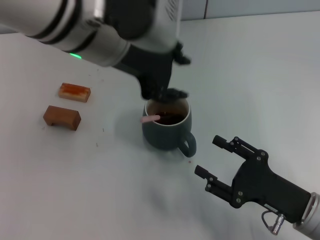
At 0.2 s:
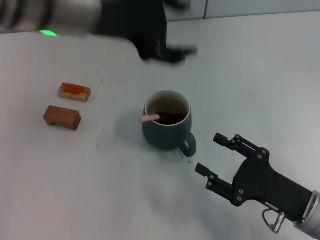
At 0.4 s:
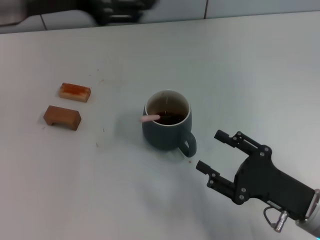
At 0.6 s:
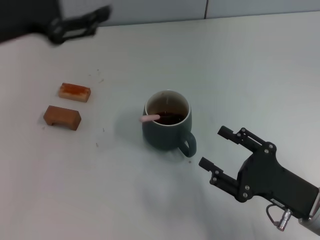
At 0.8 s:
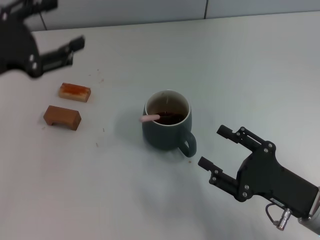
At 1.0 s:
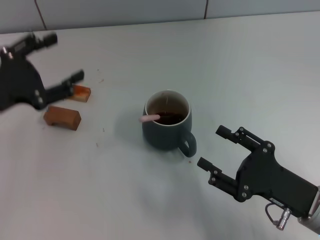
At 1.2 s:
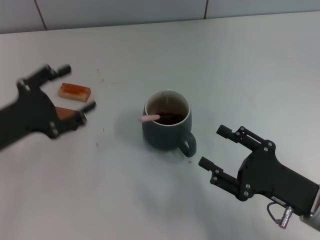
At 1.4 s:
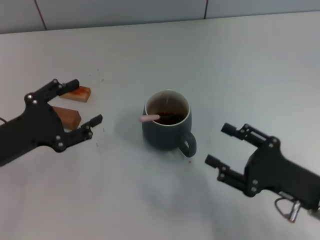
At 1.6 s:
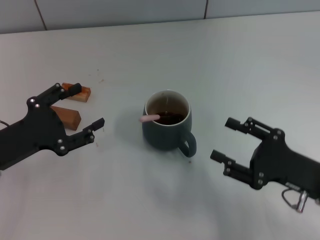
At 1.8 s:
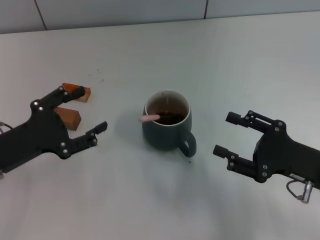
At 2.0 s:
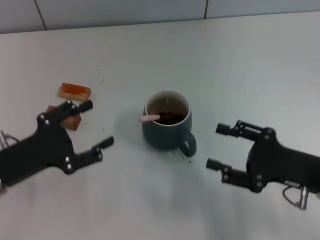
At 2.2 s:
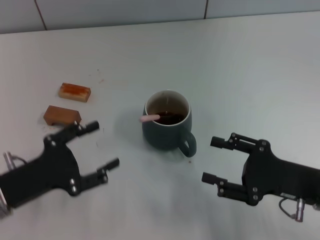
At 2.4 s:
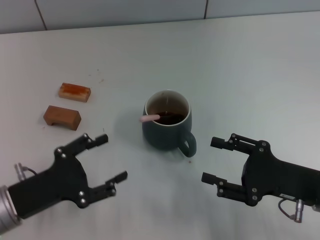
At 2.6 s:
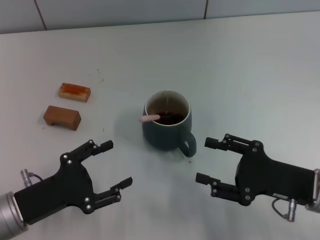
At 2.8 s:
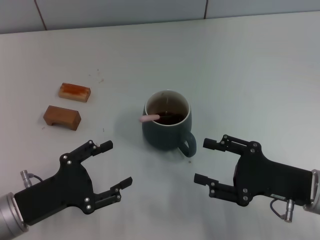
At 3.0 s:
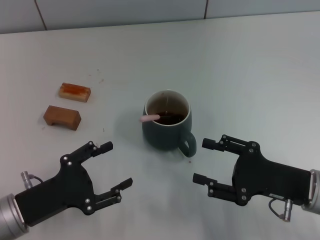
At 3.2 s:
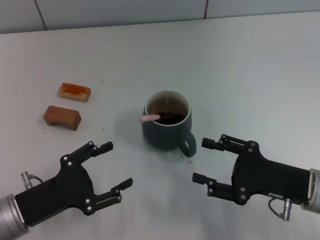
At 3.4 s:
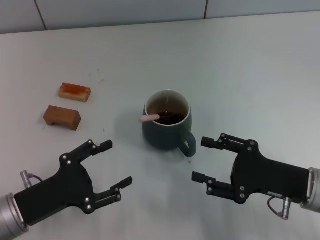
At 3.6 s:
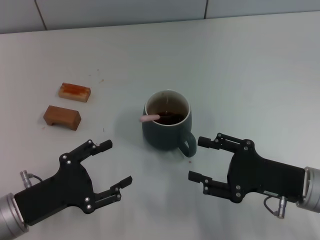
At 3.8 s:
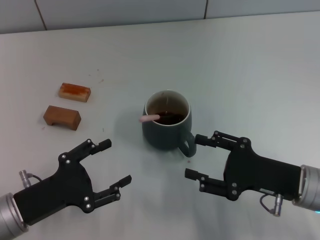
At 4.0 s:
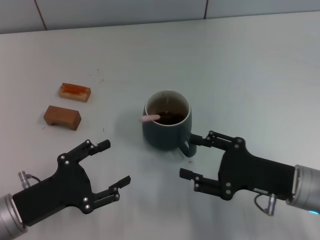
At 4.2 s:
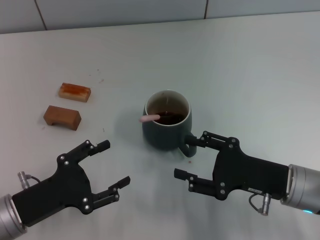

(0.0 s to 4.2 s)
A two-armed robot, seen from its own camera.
Task of the whole recording: Move the grey cup to the center, lift the pink spoon, stir it three times in the cup, and put the spoon into the cup.
0.0 s - 1.4 s: The left gripper heads to the left and downward, covering roughly 25 cm, and opens its fingers.
1.4 s - 2.8 s: The left gripper travels backward and downward by about 5 cm.
2.8 s - 4.2 s: The grippers make only small movements.
